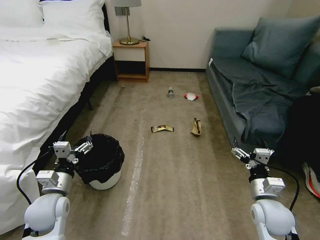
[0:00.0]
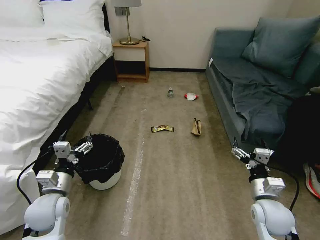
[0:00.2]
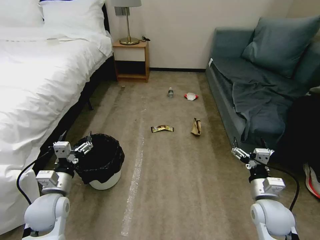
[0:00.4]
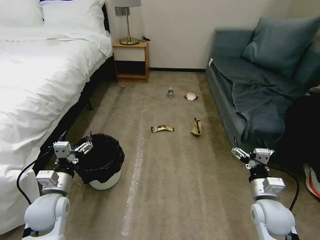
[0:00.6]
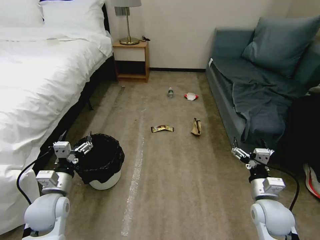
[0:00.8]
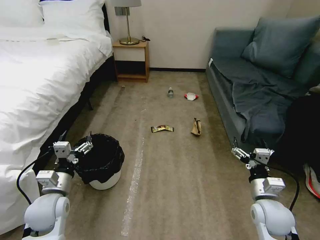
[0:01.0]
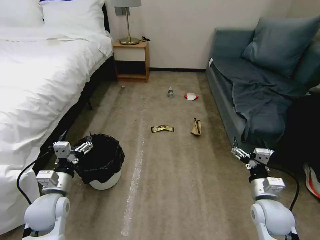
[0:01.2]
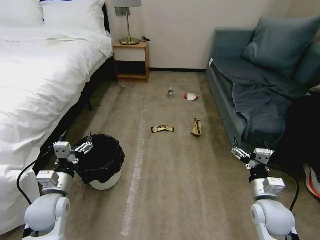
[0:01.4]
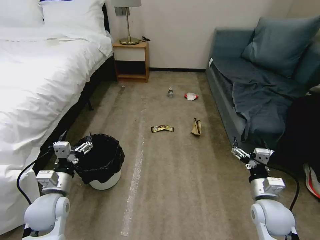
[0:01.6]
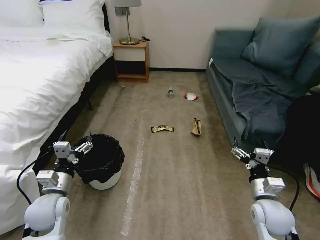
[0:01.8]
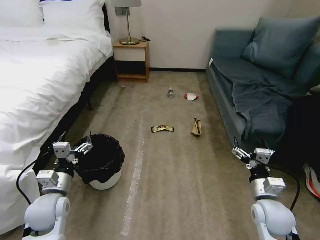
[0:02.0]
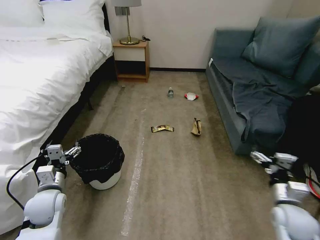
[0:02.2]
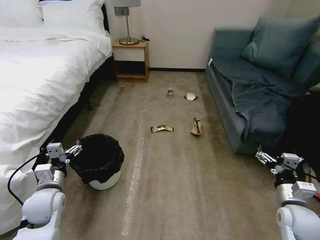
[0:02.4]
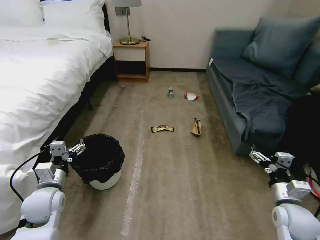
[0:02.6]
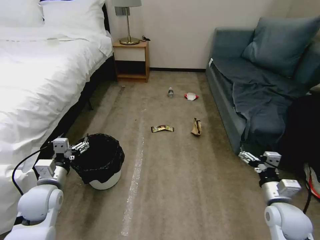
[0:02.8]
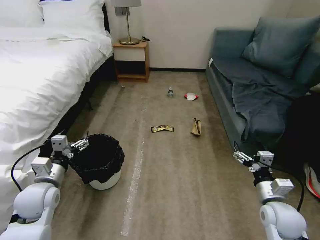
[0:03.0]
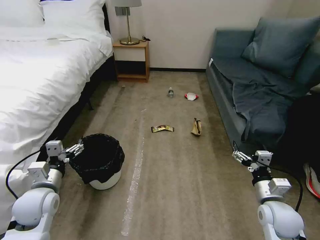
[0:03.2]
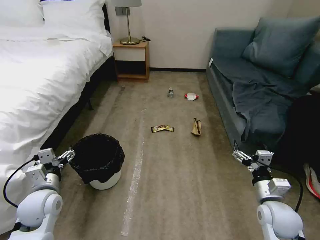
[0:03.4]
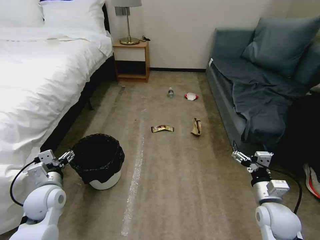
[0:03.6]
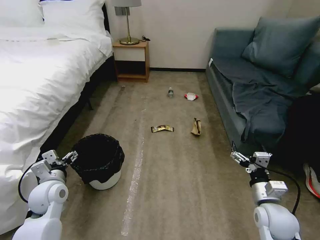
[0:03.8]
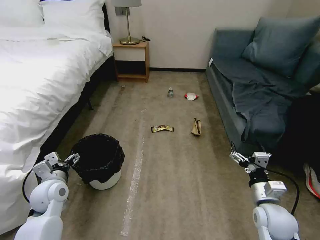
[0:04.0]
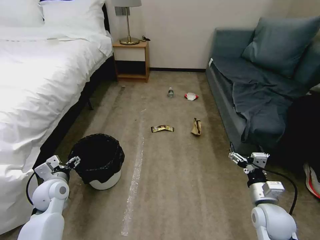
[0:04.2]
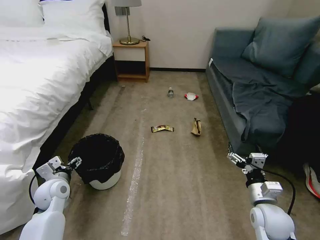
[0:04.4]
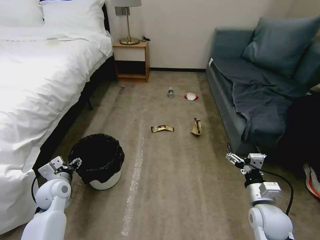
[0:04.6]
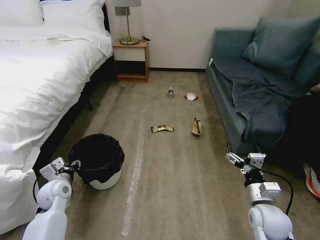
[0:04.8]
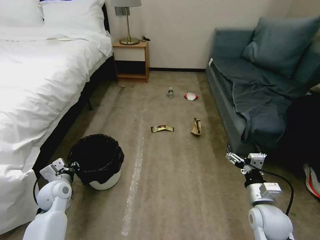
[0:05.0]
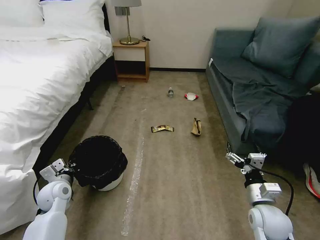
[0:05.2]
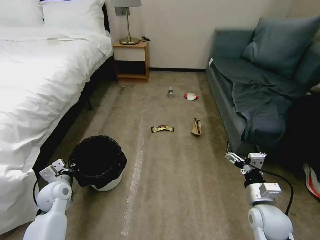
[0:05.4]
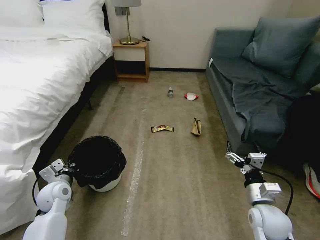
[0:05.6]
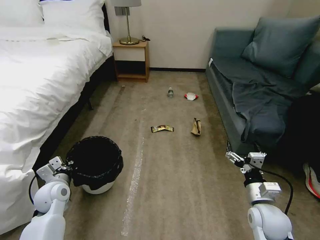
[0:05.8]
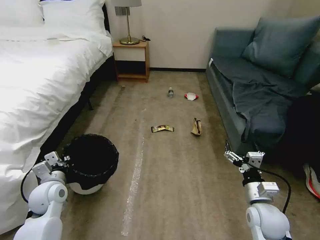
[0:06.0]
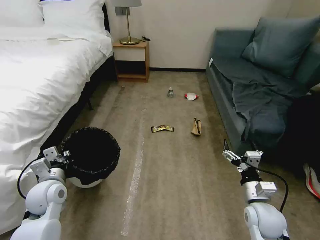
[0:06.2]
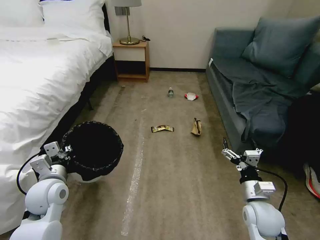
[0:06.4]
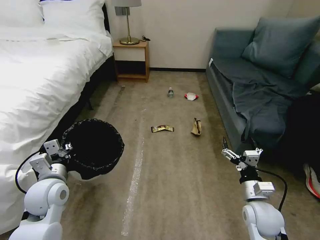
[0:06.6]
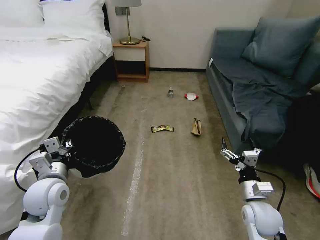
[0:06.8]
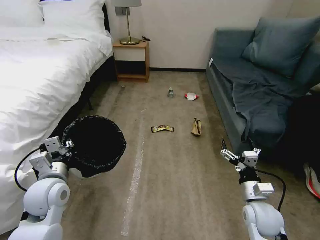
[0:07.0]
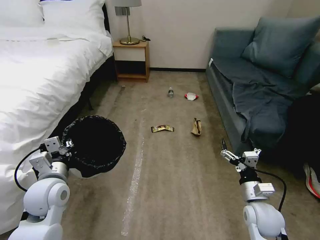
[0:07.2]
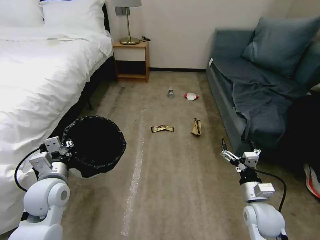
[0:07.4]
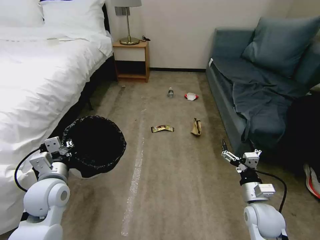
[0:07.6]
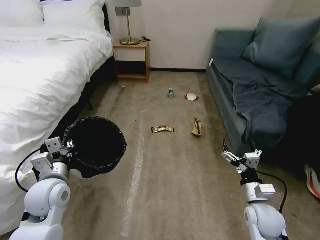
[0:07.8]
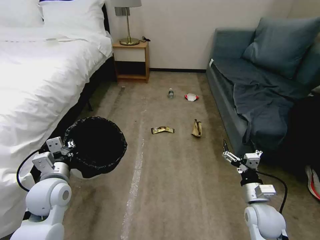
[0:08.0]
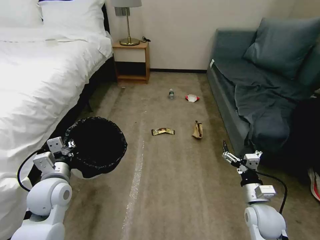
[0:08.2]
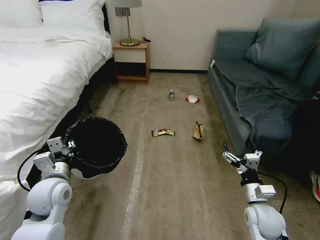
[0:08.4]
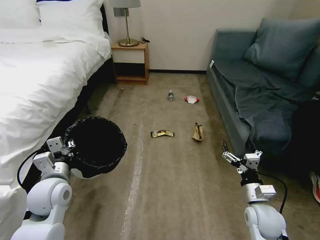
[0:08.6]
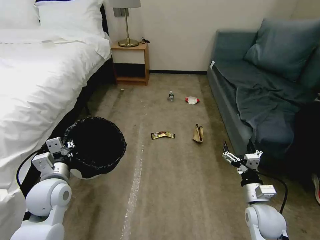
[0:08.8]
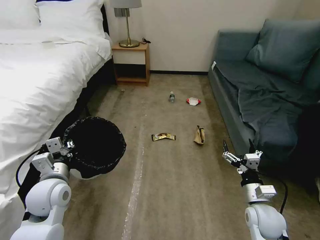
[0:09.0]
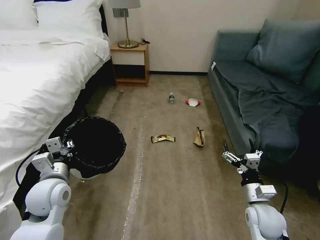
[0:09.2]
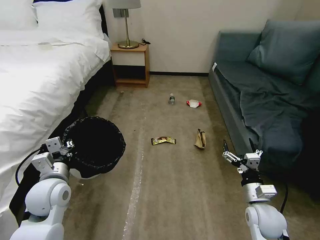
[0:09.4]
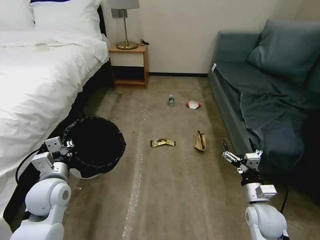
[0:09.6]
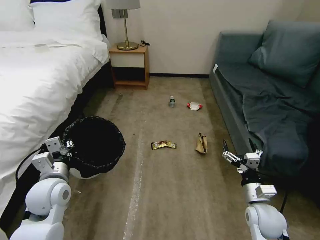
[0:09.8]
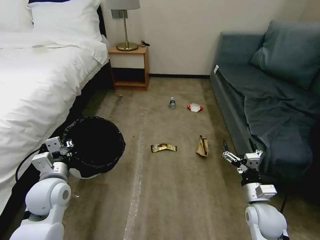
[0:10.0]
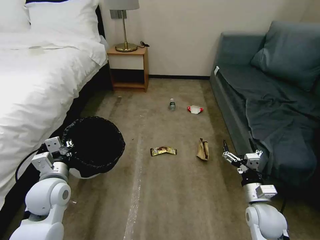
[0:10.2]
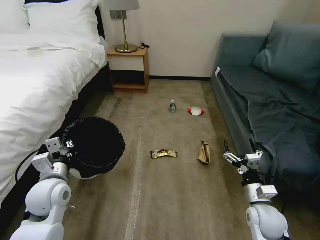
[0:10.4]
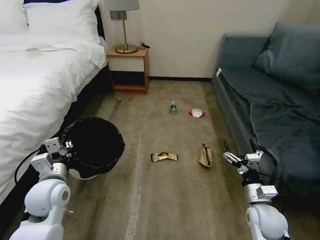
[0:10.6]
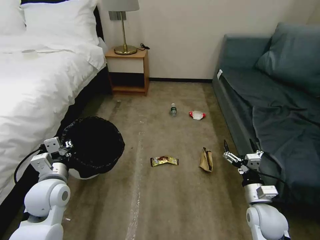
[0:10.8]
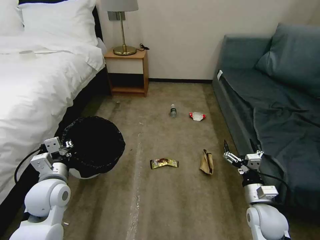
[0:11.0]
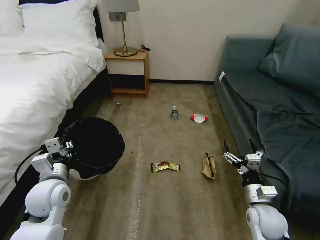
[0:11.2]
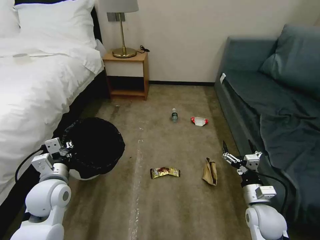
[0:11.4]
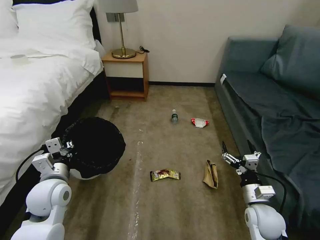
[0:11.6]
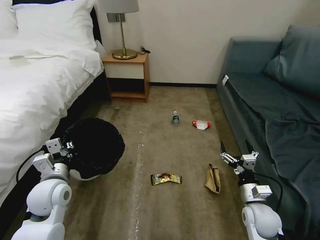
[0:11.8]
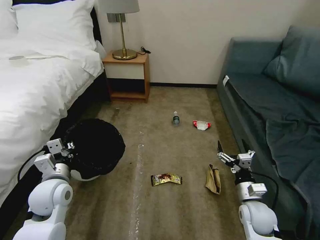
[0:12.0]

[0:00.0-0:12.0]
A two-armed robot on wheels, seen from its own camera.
Task of the whole recording: Pick up the trash bin, then pick up the garbage on the floor and place it into the trash bin.
0:03.0 to 0:04.4: The left gripper is displaced downward by approximately 5 cm.
0:04.4 to 0:06.0: The left gripper closes.
0:06.0 to 0:07.6: The left gripper shifts some 5 cm upward.
0:07.6 to 0:10.4: Both grippers stay about where they are.

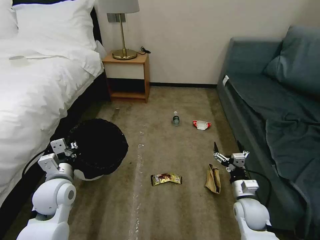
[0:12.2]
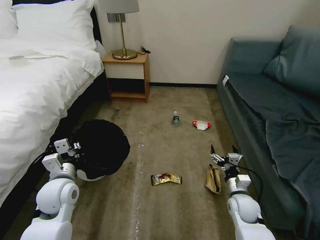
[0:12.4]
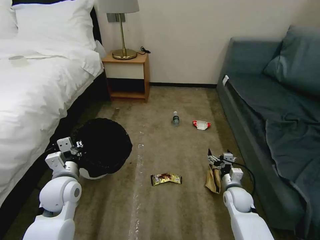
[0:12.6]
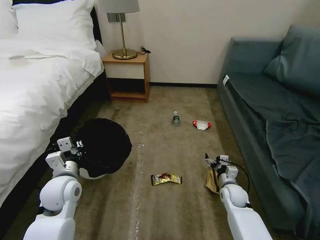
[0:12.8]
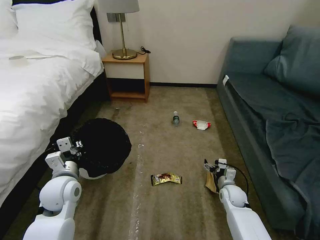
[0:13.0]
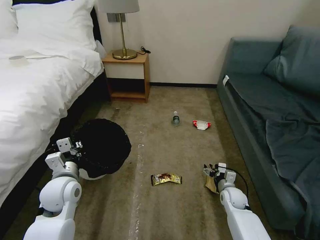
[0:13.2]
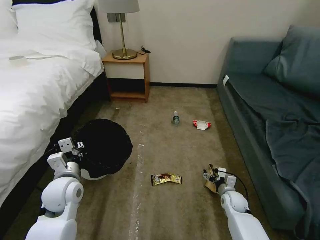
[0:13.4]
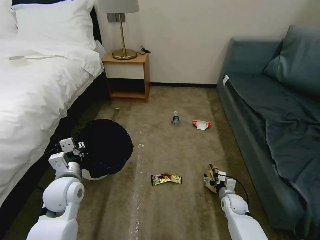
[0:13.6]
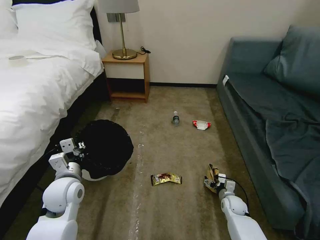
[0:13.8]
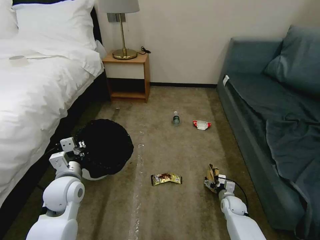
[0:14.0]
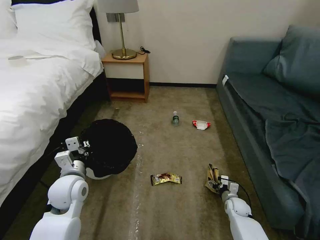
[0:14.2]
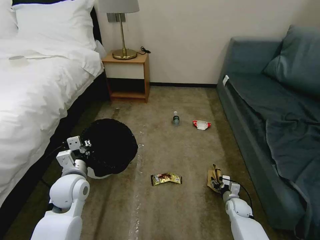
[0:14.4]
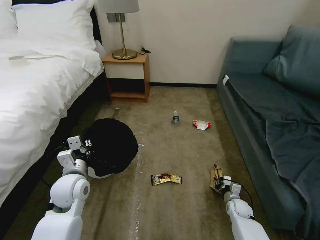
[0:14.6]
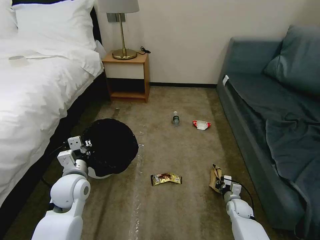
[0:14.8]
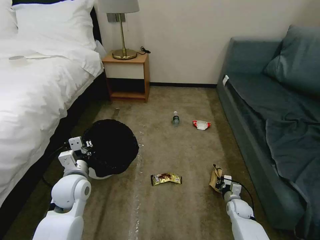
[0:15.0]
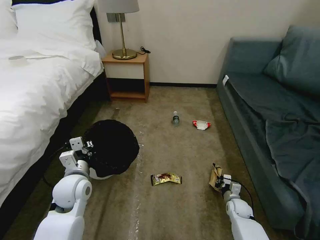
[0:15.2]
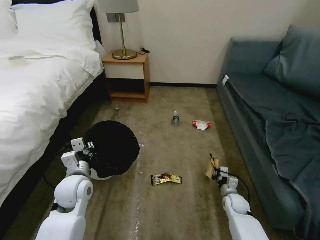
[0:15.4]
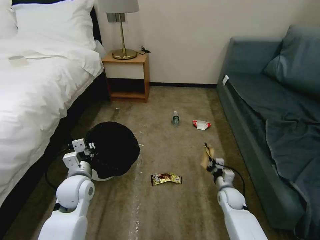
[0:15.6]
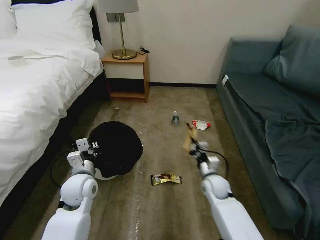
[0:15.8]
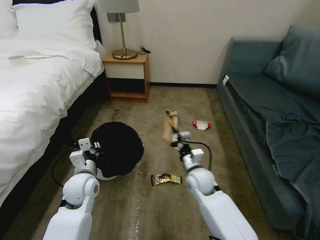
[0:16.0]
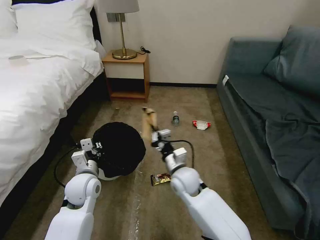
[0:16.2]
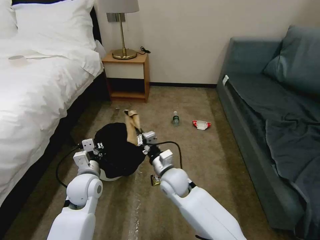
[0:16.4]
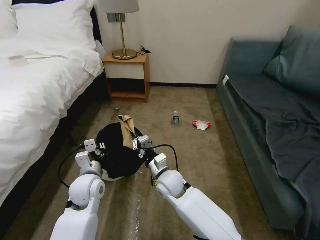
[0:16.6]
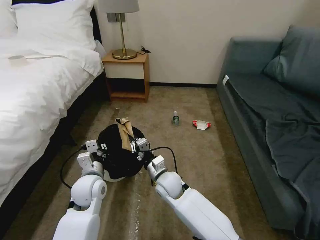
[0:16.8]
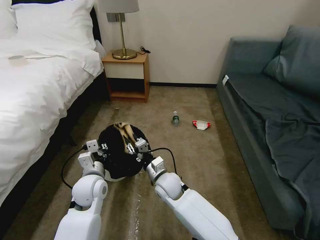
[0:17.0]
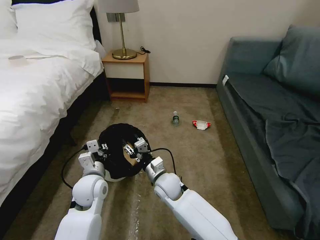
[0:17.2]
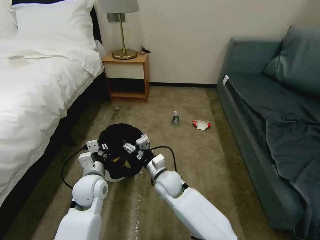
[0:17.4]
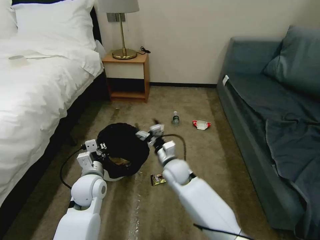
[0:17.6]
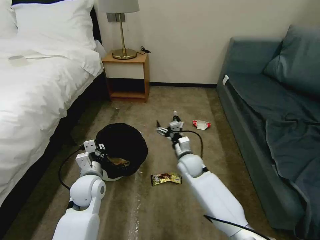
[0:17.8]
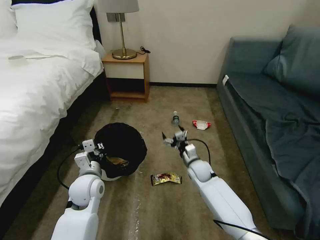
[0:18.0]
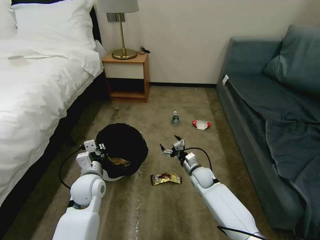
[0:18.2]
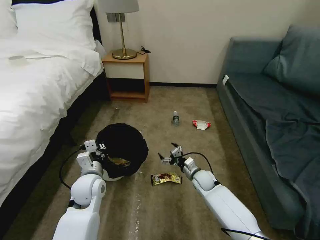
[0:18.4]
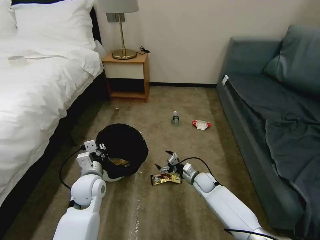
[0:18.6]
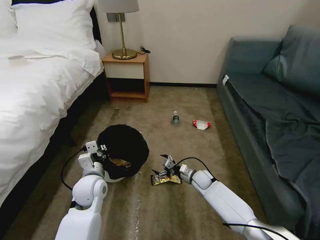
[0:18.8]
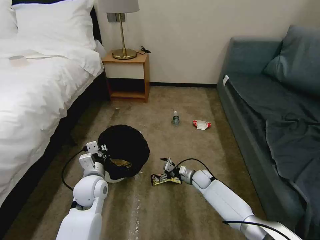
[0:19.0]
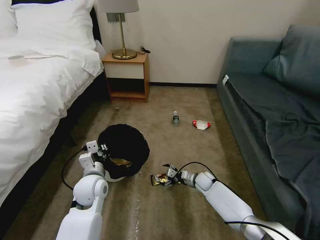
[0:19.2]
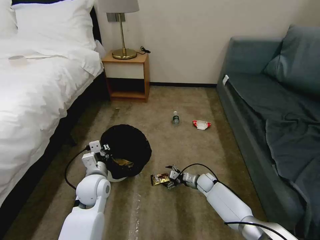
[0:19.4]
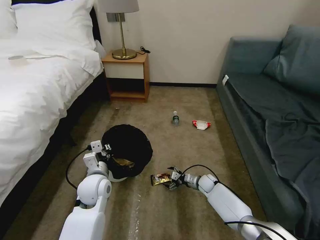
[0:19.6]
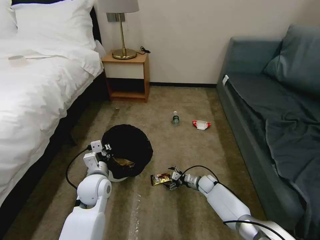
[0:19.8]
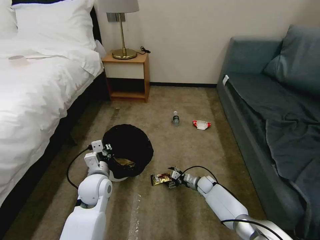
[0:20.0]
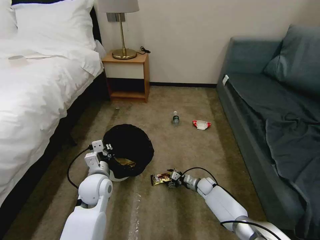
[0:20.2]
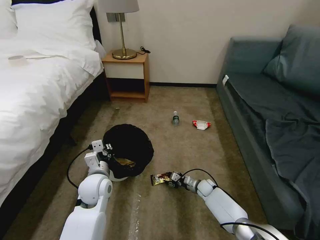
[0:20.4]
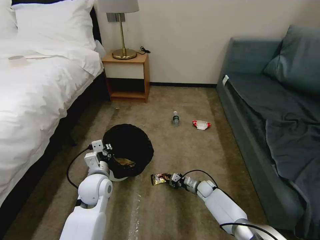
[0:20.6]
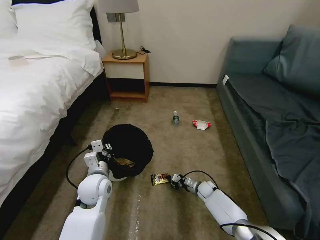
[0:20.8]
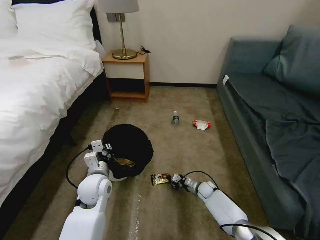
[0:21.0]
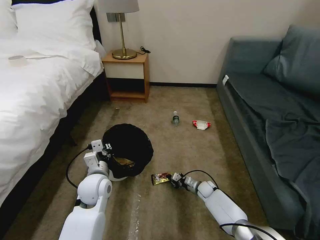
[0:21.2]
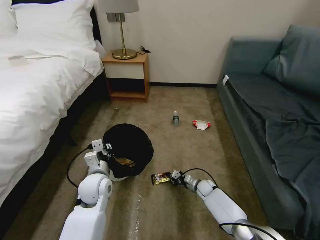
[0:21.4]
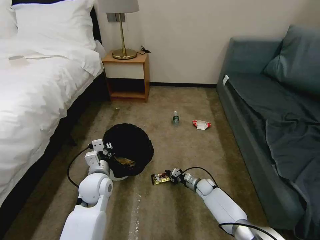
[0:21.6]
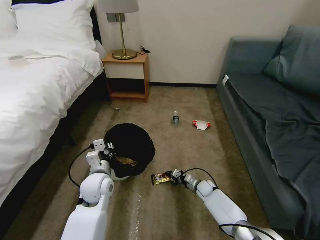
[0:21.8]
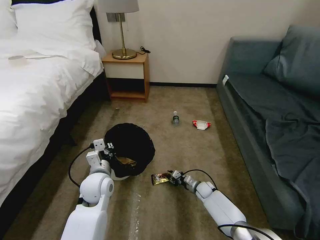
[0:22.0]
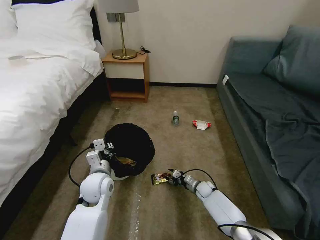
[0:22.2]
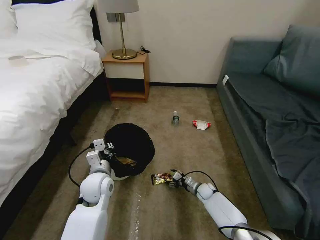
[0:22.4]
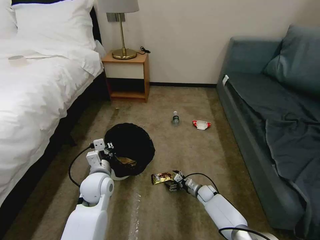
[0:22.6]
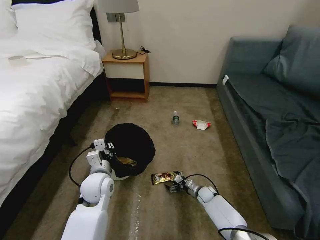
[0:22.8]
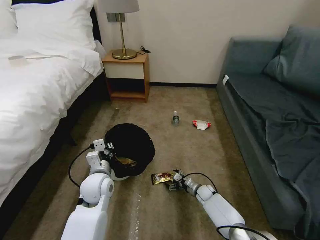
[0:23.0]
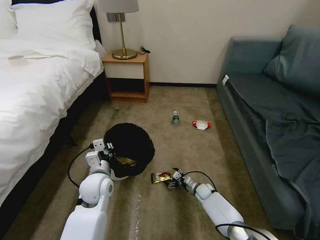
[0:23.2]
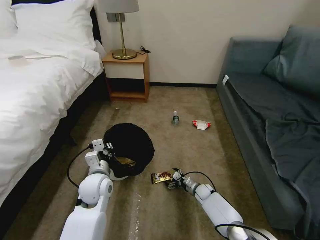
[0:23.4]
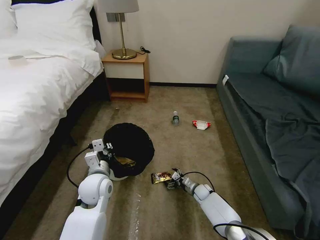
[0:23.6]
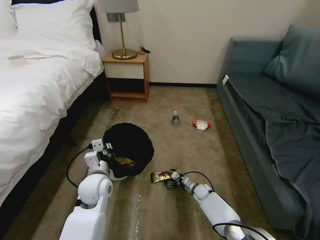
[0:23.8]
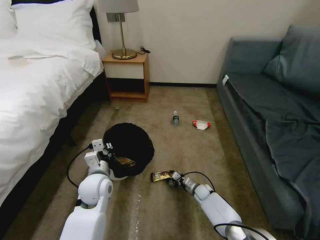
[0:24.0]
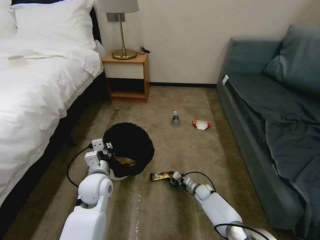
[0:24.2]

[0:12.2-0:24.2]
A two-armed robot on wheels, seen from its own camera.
Task of the whole recording: Pick up the trash bin, then pick up the garbage on the floor and place it into the trash bin.
0:12.2 to 0:13.8: The right gripper is displaced downward and forward by about 15 cm.
0:13.8 to 0:15.2: The right gripper closes its fingers.
0:15.2 to 0:16.6: The right gripper is displaced to the left and upward by approximately 35 cm.
0:16.6 to 0:18.2: The right gripper shifts some 20 cm to the right, downward and forward, and opens up.
0:18.2 to 0:19.8: The right gripper goes roughly 15 cm downward and to the right.
0:19.8 to 0:21.2: The right gripper closes its fingers.
0:21.2 to 0:22.6: The right gripper opens up.
0:22.6 to 0:24.2: The right gripper closes up.
